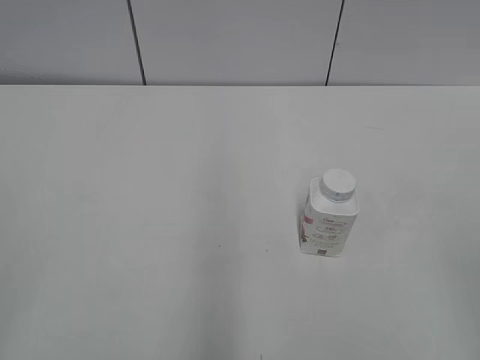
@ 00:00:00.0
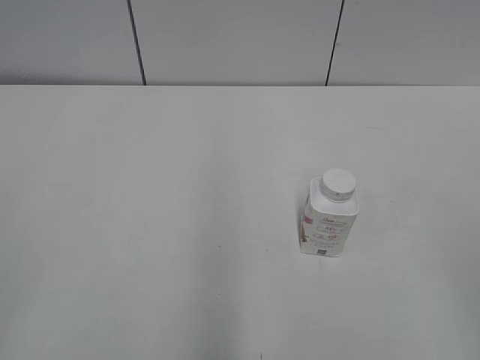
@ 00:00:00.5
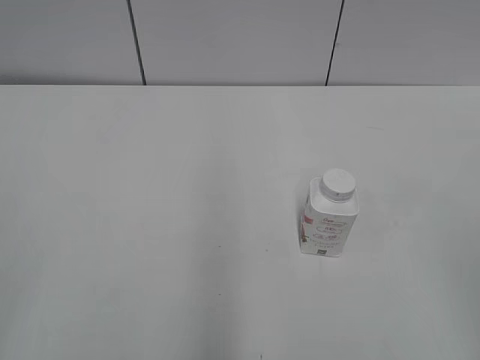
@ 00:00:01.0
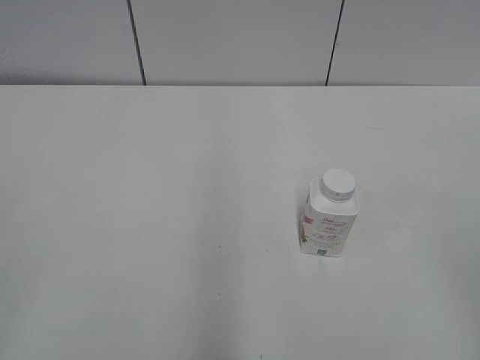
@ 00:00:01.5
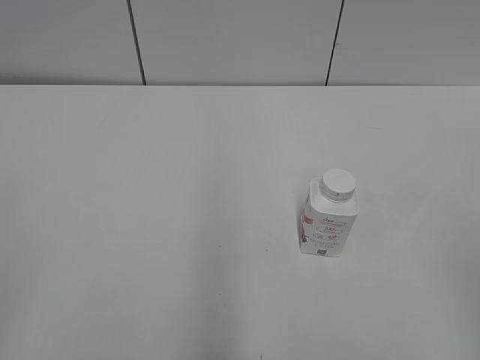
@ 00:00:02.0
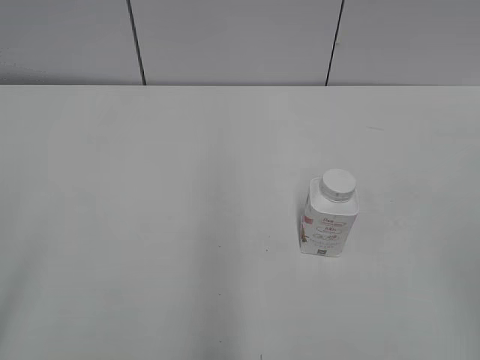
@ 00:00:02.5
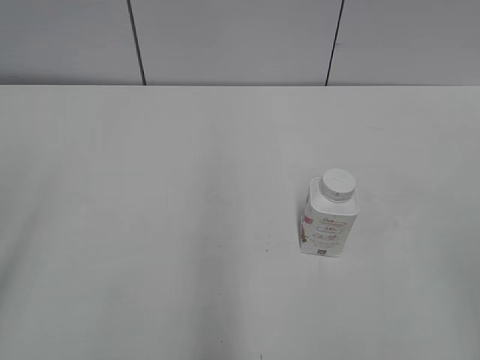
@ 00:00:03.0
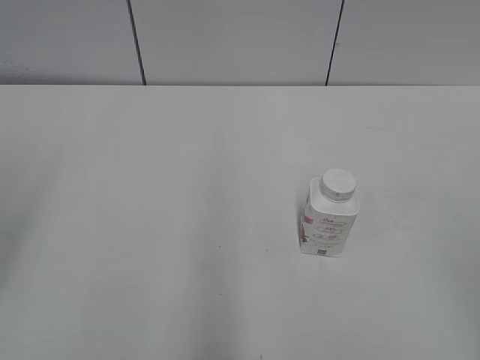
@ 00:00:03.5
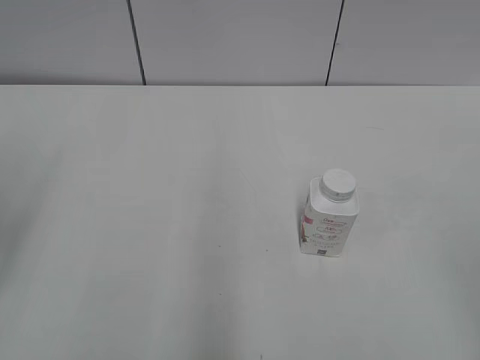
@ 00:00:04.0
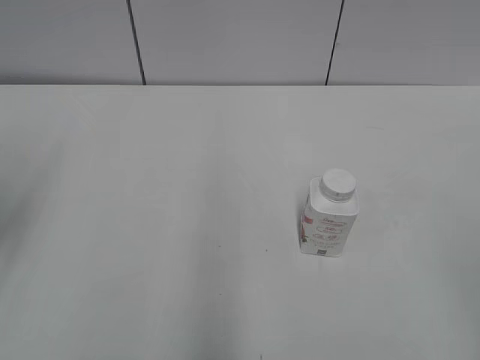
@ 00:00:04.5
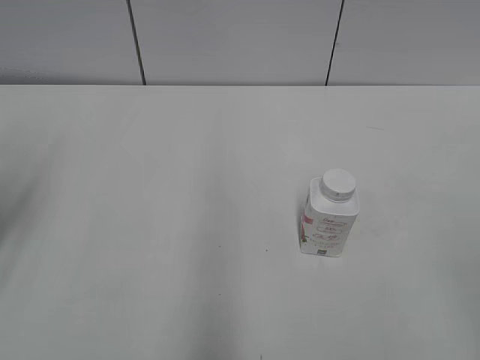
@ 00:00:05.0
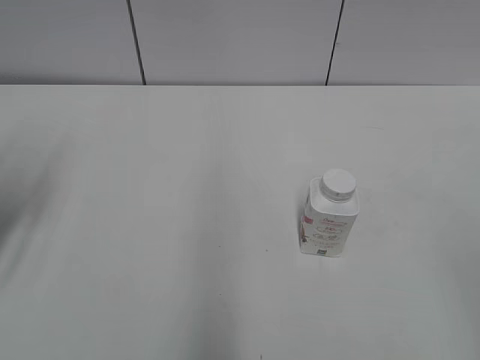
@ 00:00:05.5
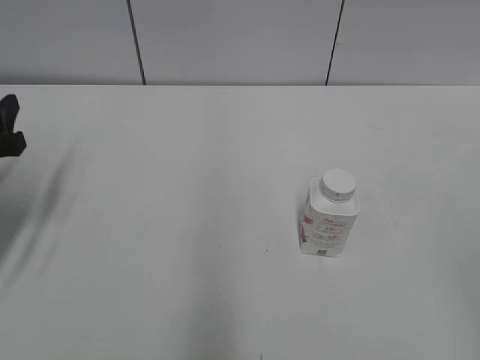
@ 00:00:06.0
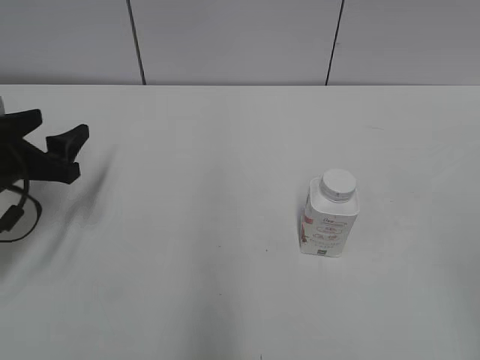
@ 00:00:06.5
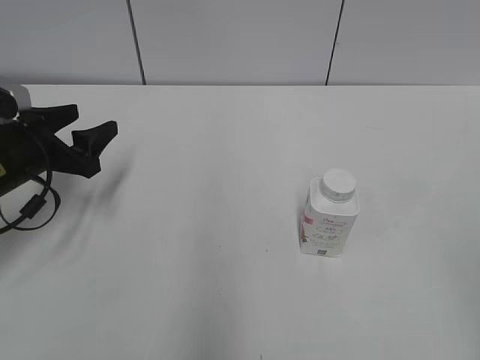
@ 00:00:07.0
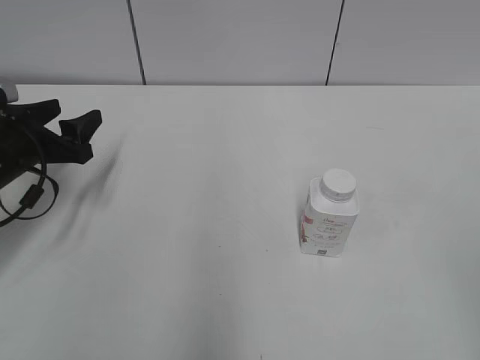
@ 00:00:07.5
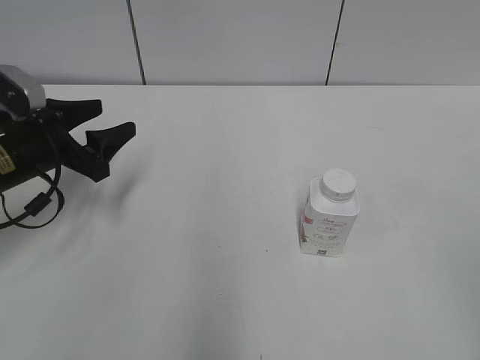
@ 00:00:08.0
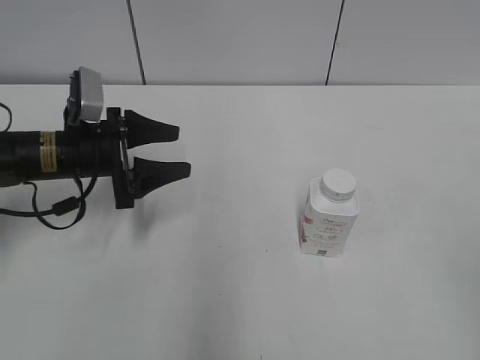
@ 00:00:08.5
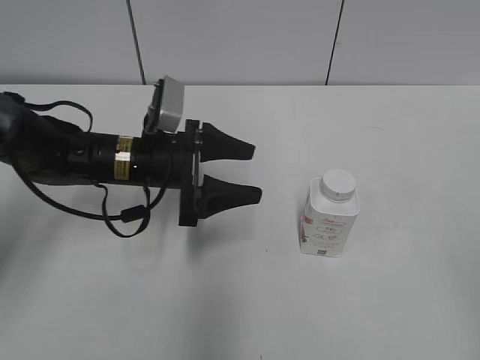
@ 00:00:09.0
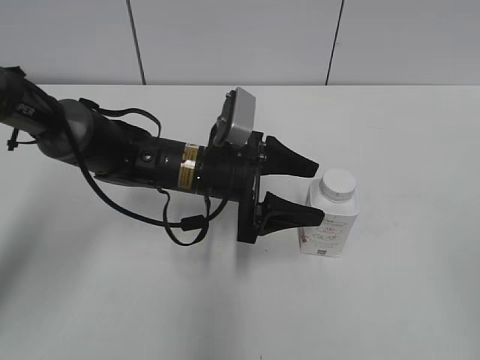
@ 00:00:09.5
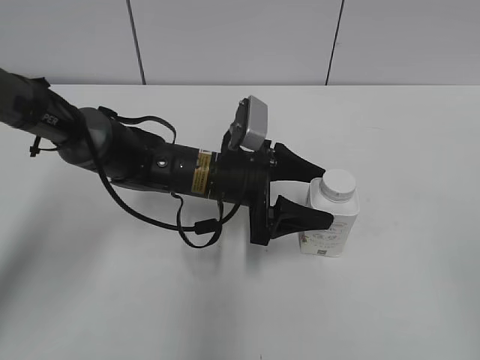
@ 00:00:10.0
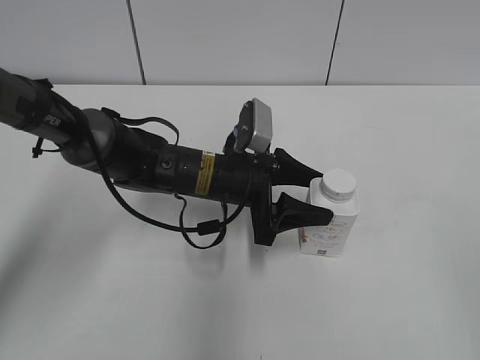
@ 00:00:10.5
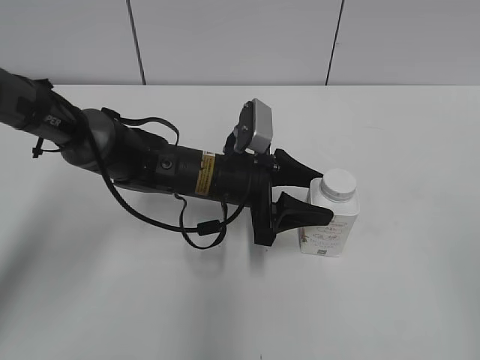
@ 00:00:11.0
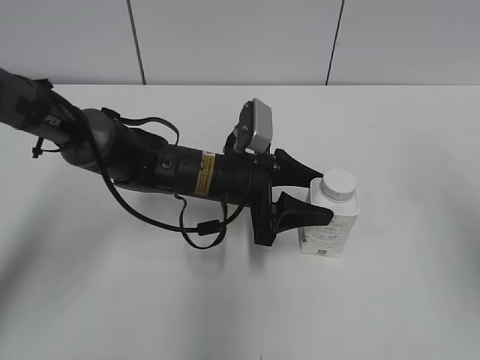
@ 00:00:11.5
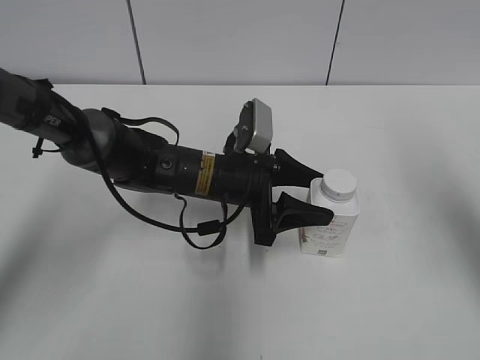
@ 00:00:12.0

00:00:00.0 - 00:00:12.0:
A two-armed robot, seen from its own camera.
Step, 00:00:00.0 - 00:00:11.0: Grab the Yili Changqing with the left hand.
00:00:04.0 - 00:00:06.0: The left gripper is displaced forward and downward by roughly 15 cm.
00:00:06.0 - 00:00:08.0: The left gripper shifts roughly 10 cm forward and to the right.
00:00:08.0 - 00:00:10.0: The left gripper moves to the right, some 20 cm.
00:00:10.0 - 00:00:12.0: The left gripper closes its fingers, while the right gripper goes approximately 20 cm forward, and closes.

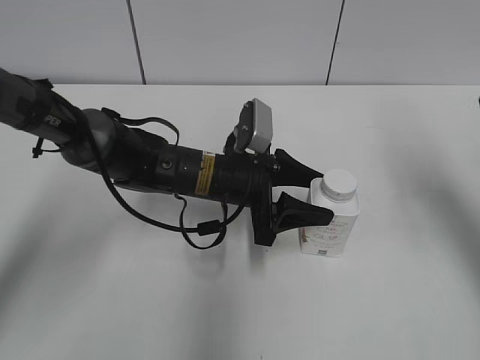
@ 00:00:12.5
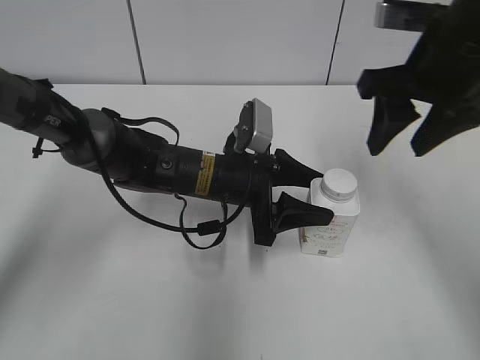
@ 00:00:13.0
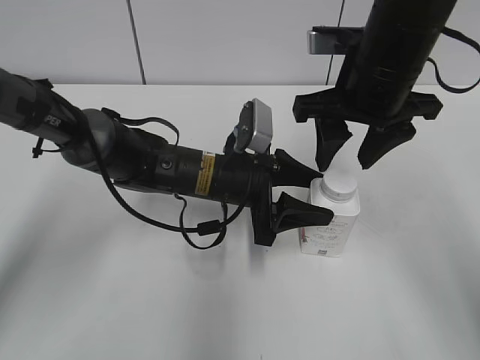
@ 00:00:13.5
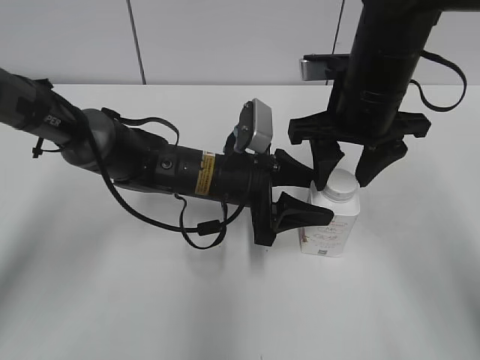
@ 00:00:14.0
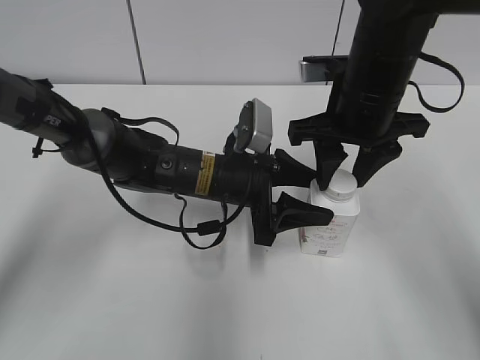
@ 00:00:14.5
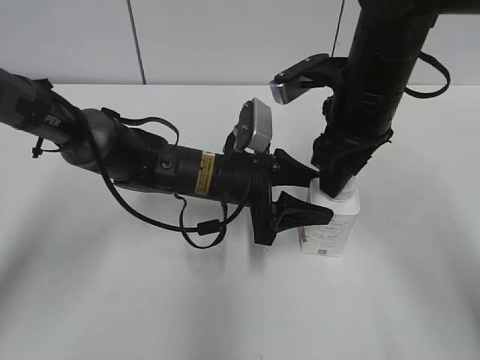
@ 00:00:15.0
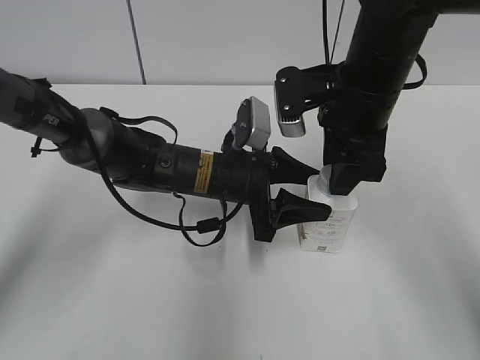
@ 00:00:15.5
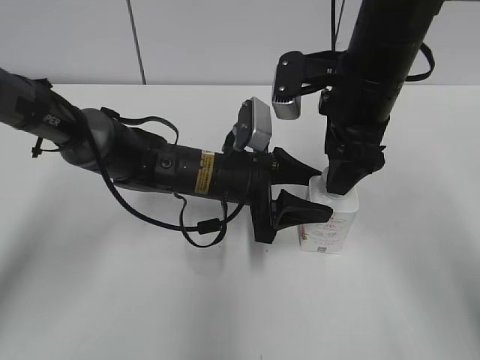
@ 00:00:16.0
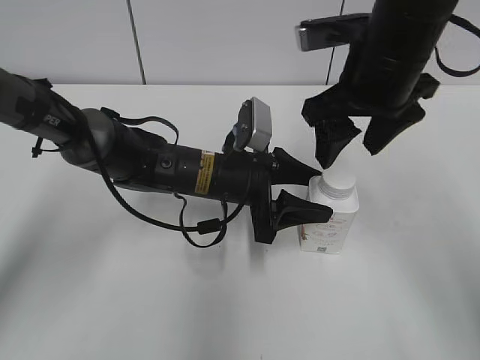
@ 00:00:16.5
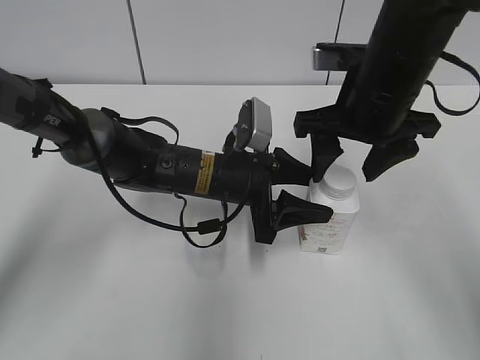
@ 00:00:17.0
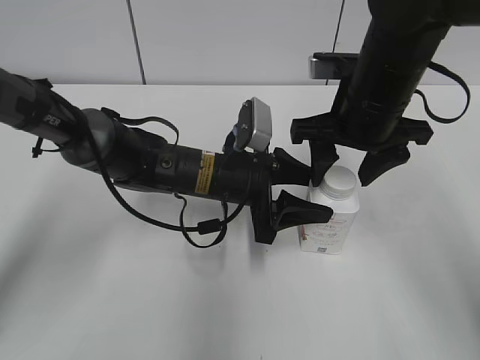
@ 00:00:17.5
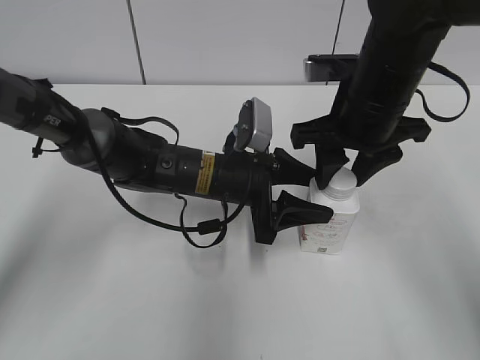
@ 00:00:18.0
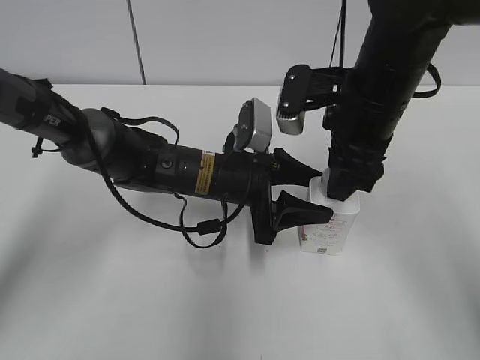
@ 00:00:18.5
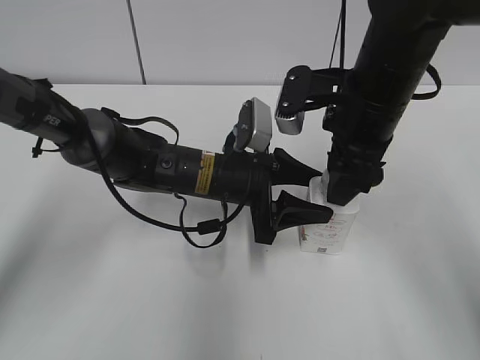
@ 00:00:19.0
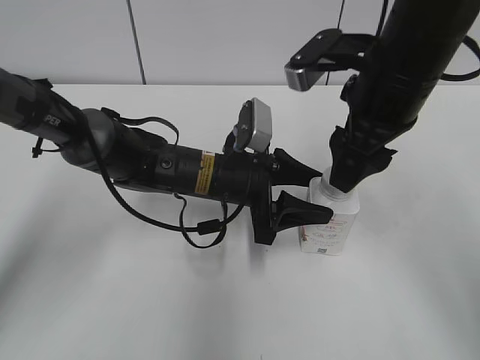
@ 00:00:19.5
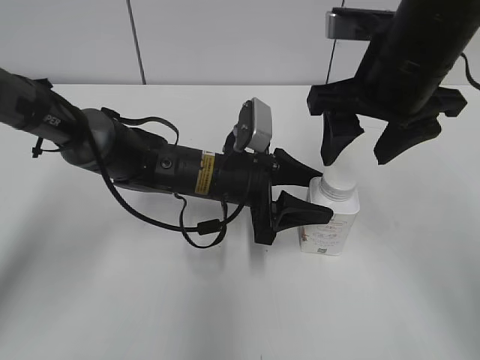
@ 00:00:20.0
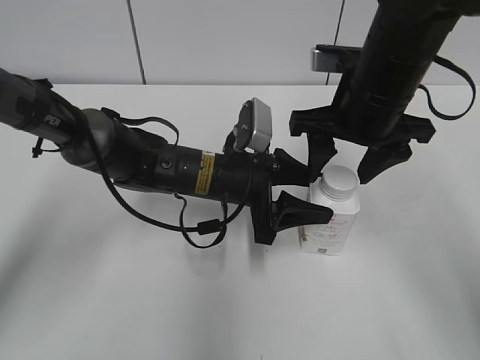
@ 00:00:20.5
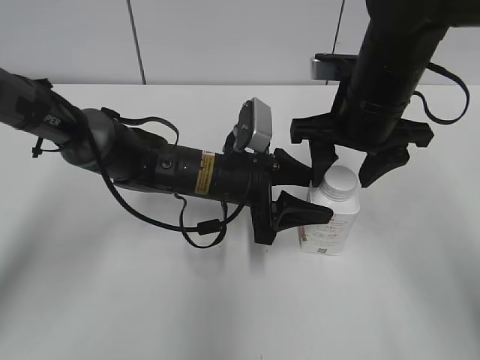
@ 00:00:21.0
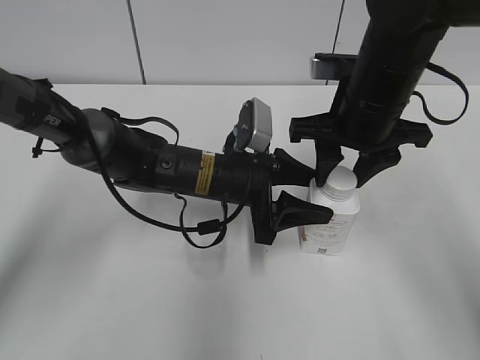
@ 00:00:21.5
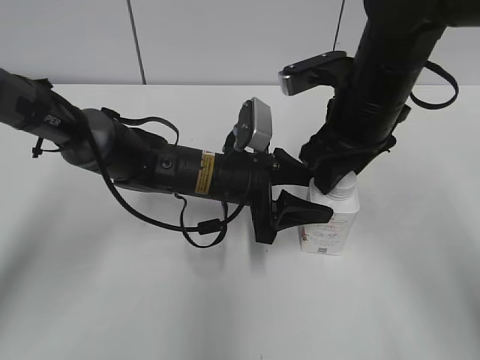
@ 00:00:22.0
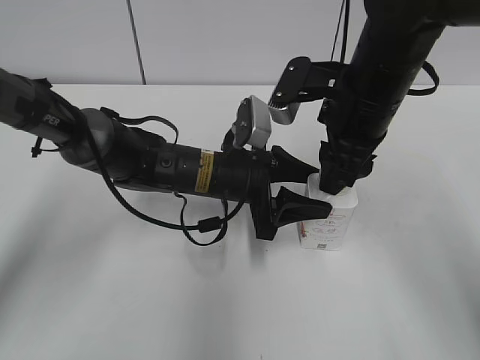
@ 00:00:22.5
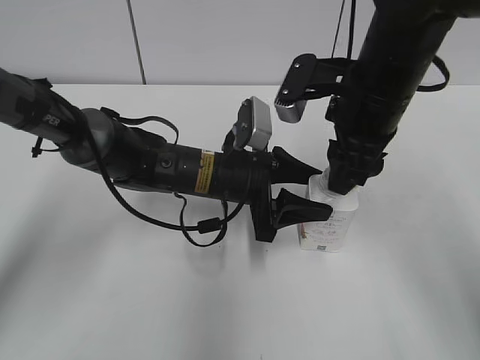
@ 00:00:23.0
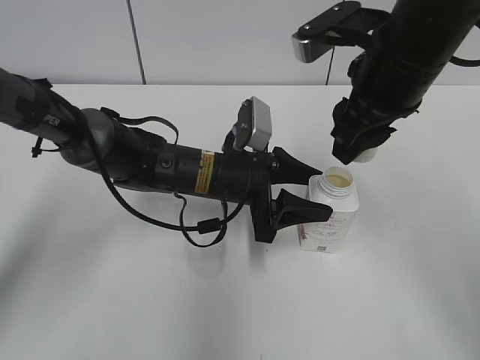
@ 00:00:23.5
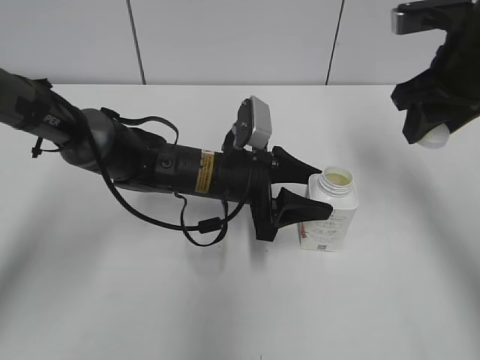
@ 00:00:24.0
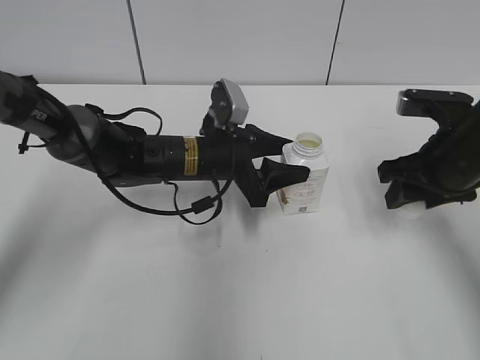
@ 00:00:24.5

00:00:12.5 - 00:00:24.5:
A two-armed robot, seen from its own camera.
00:00:12.5 - 00:00:14.5: The right gripper shifts approximately 15 cm to the left and downward, and closes its fingers.
00:00:14.5 - 00:00:16.5: The right gripper opens.
00:00:16.5 - 00:00:18.5: The right gripper closes its fingers.
00:00:18.5 - 00:00:20.5: The right gripper opens its fingers.
00:00:20.5 - 00:00:22.5: The right gripper closes.
00:00:22.5 - 00:00:24.5: The right gripper moves to the right and downward, approximately 10 cm.

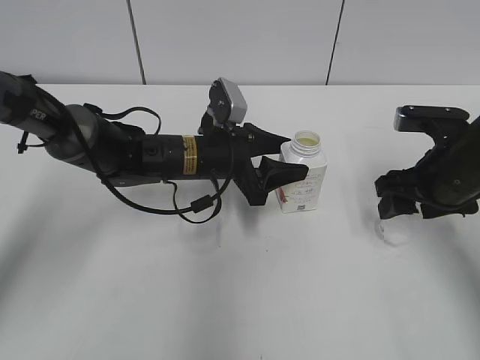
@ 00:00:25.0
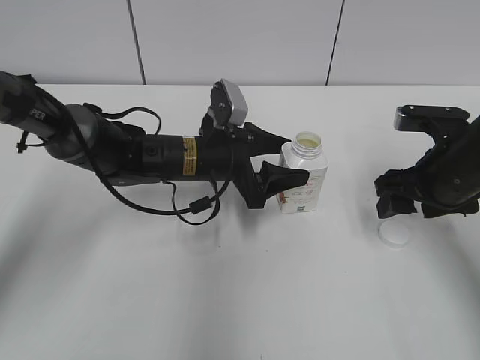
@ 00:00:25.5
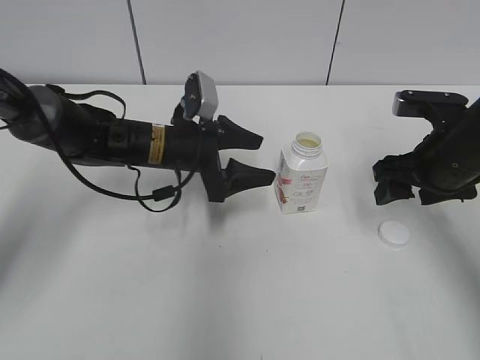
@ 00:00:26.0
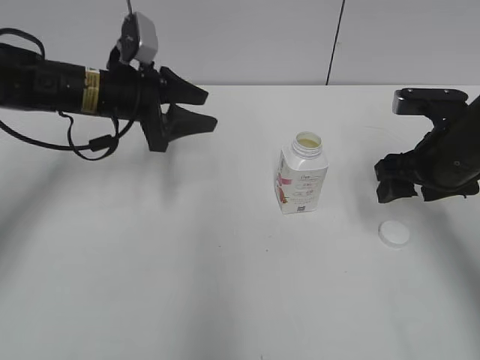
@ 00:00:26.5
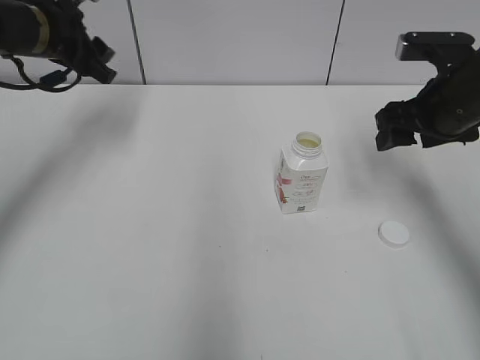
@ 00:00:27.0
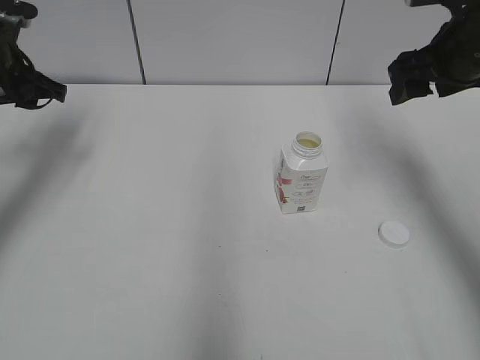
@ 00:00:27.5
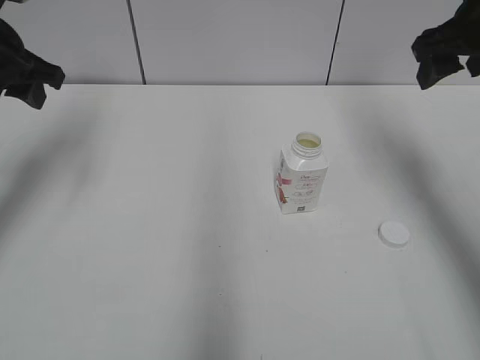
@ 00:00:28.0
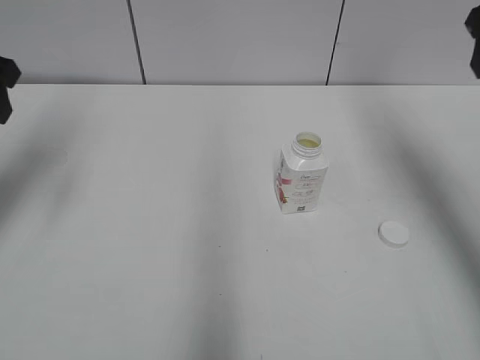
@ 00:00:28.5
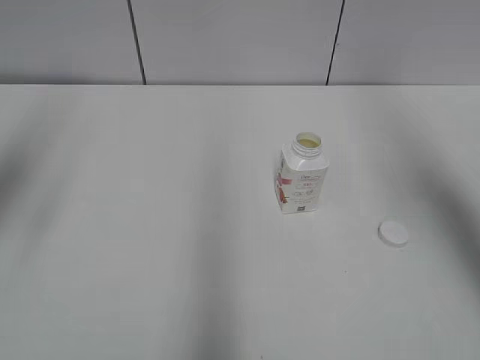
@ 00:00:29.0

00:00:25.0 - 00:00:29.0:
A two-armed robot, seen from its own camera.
00:00:25.0 - 00:00:27.0: The left gripper heads to the left and upward, covering some 25 cm, and opens, then closes once more. The right gripper moves upward, approximately 5 cm.
00:00:27.0 - 00:00:29.0: The right gripper is displaced upward and backward by about 20 cm; the left gripper travels backward, upward and to the left by some 25 cm, and opens.
